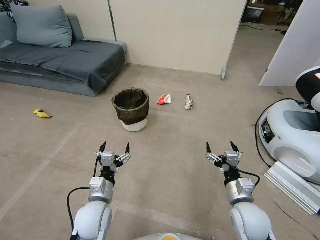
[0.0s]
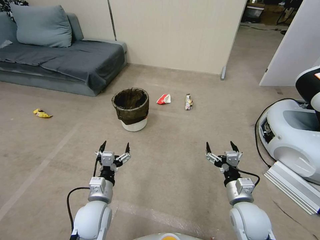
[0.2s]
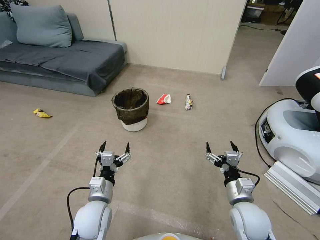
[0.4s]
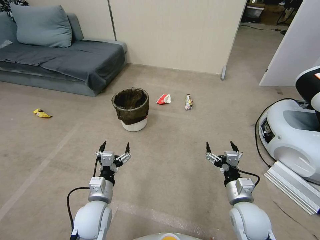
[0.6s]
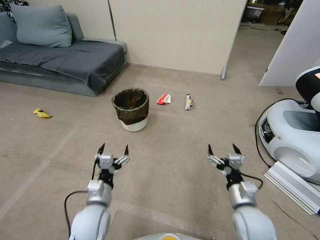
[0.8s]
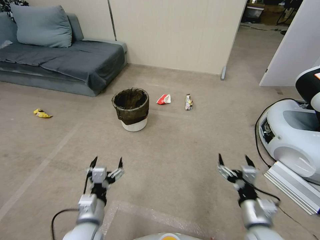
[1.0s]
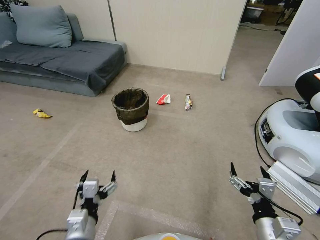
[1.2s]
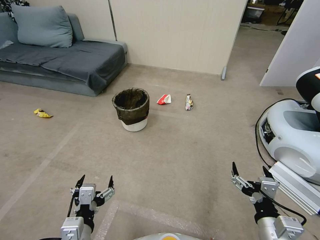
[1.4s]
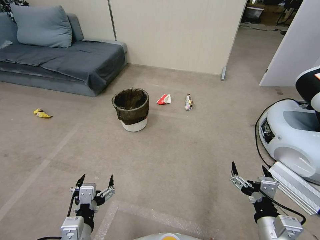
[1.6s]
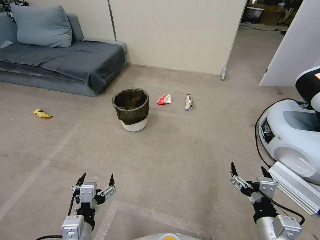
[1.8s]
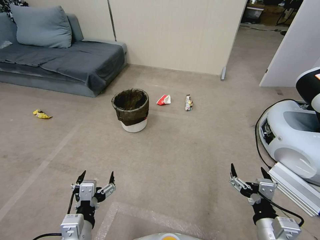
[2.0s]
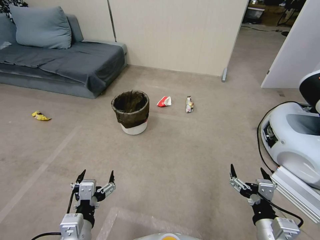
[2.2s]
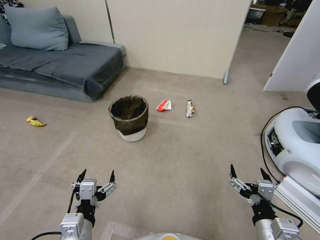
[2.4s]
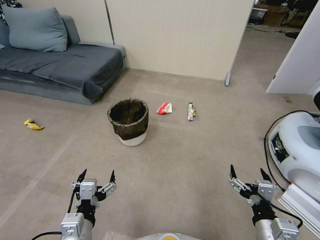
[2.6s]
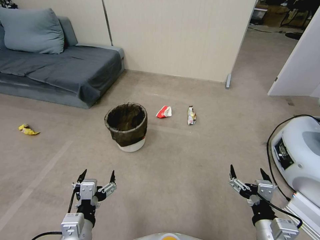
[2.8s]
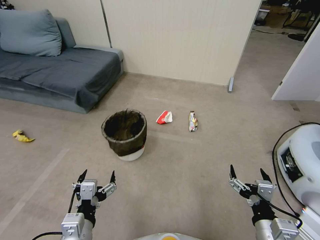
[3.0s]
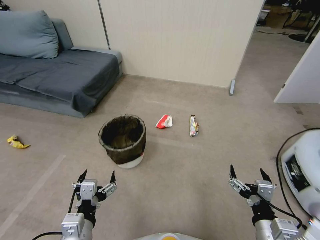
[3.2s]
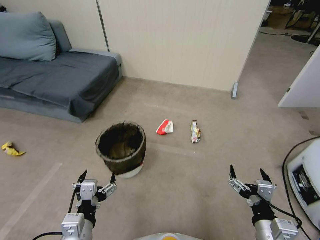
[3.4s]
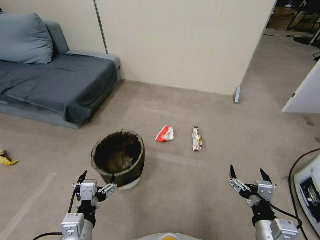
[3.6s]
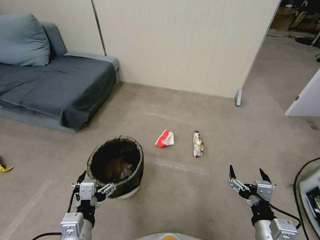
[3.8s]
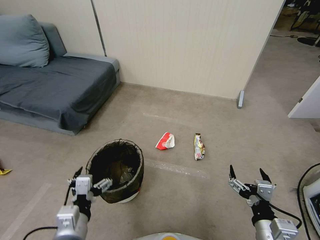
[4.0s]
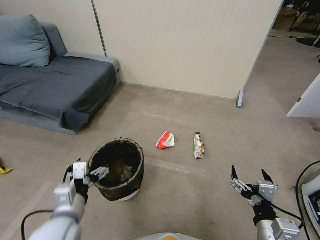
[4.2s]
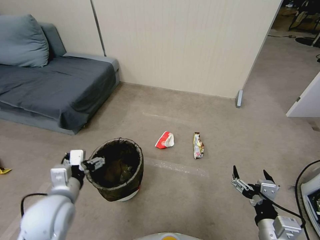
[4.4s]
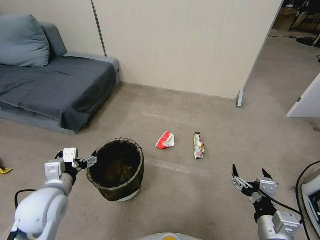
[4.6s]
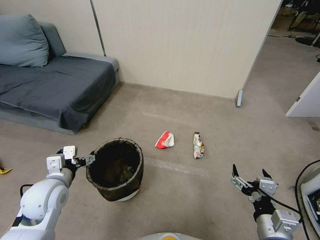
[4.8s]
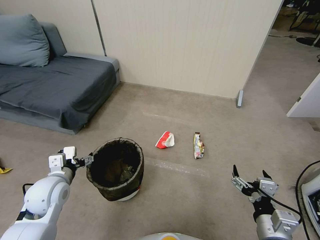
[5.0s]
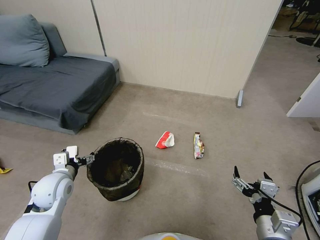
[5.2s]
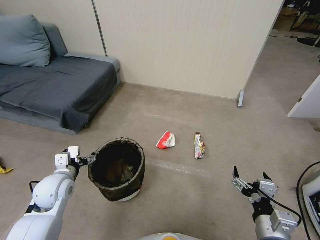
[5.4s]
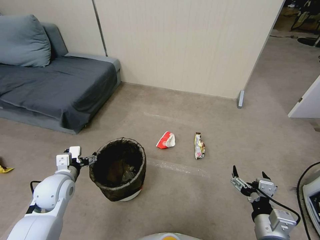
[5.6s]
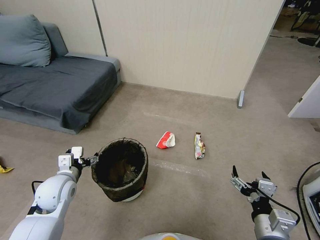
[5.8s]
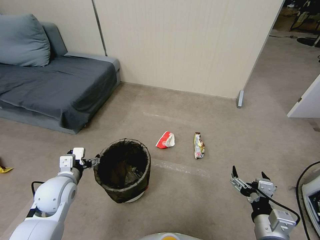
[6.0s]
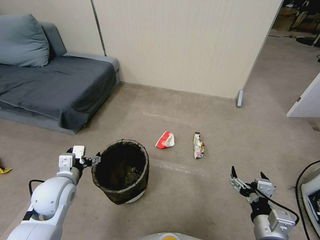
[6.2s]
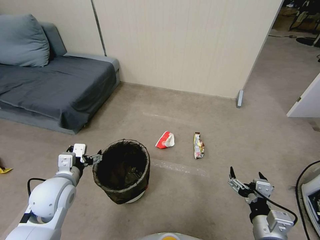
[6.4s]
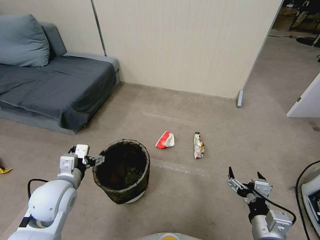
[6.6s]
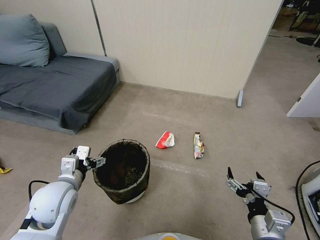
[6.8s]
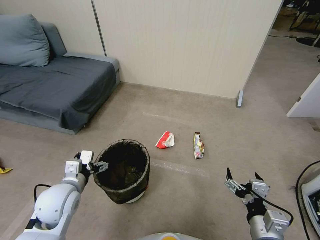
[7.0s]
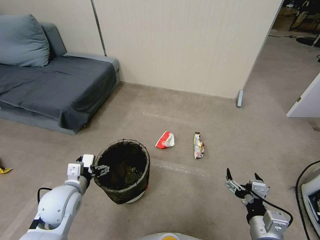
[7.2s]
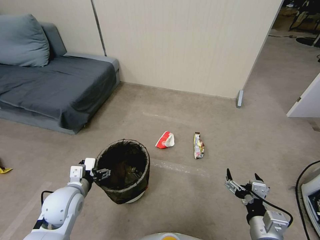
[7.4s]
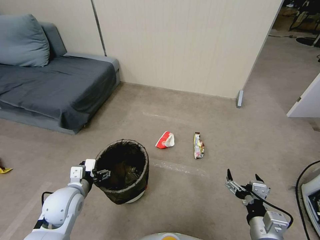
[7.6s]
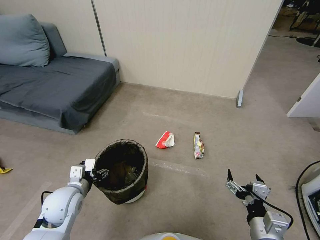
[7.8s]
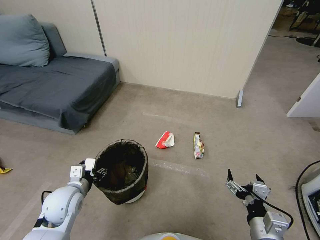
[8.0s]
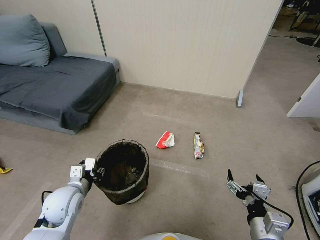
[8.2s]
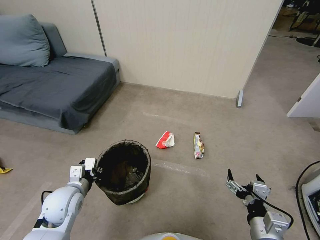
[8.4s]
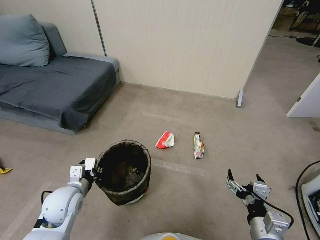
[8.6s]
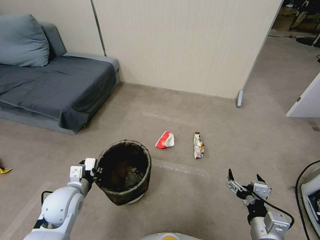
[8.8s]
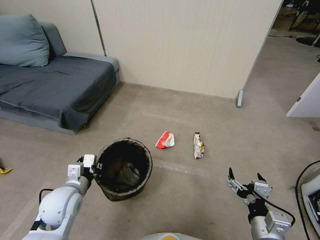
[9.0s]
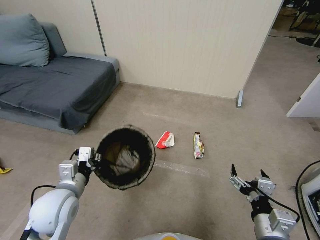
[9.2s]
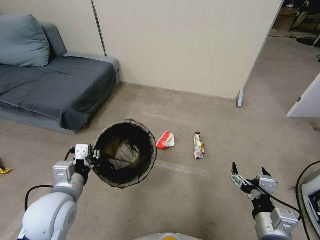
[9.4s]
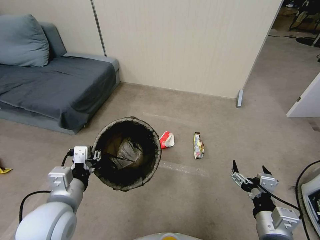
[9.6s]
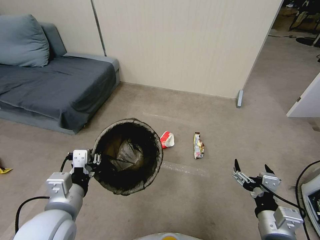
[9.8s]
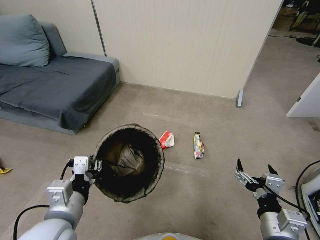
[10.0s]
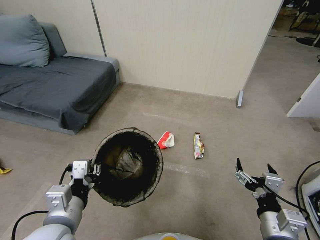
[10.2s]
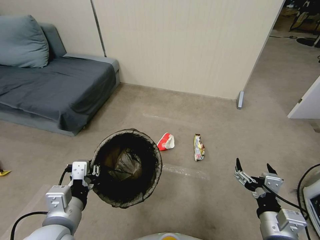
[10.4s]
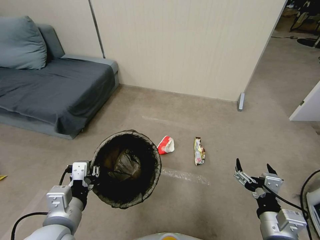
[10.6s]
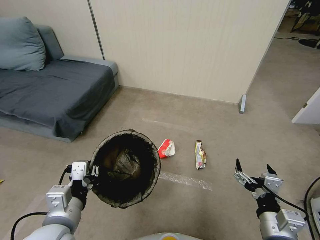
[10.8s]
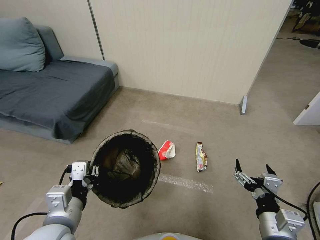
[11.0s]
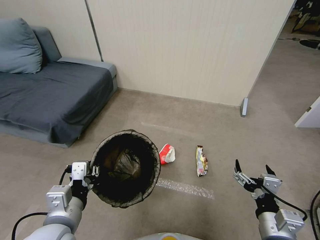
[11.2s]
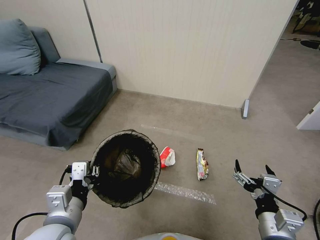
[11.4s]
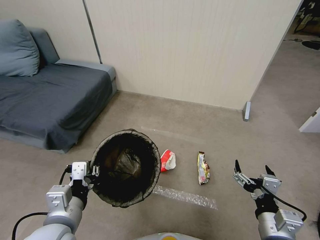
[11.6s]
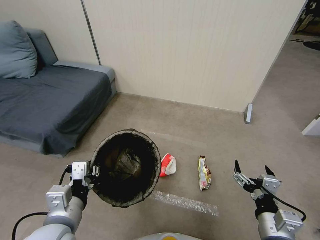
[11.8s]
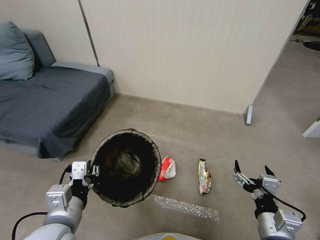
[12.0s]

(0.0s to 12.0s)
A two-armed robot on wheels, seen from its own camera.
Task of the whole recording: Pick up the trash bin, then pick up the garbage from the floor and place it into the trash bin.
3.0s - 4.4s: The left gripper moves forward and to the left, some 10 cm.
4.4s - 6.0s: The left gripper is displaced forward and downward by about 10 cm.
6.0s - 7.6s: There are only small adjustments of the grippers.
7.6s - 9.0s: The left gripper closes.
9.0s - 10.4s: The left gripper moves backward, upward and to the right, approximately 15 cm.

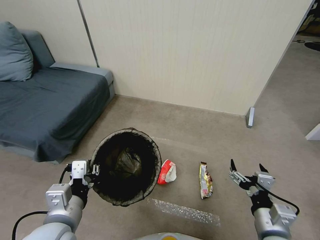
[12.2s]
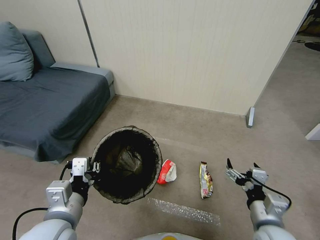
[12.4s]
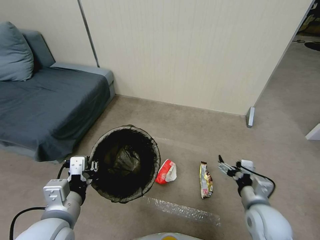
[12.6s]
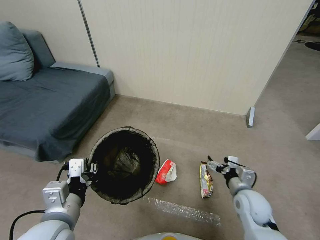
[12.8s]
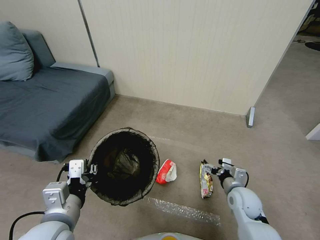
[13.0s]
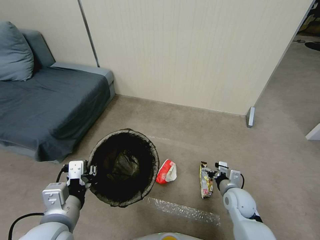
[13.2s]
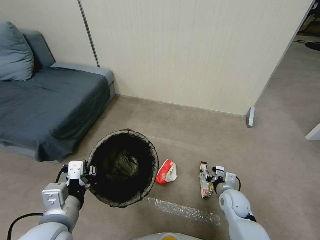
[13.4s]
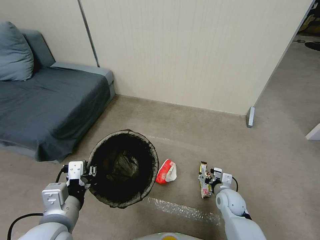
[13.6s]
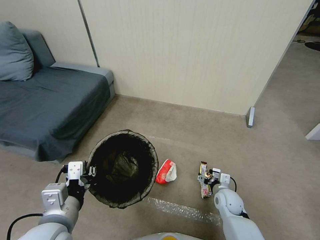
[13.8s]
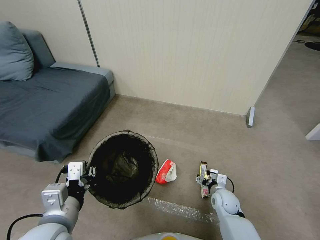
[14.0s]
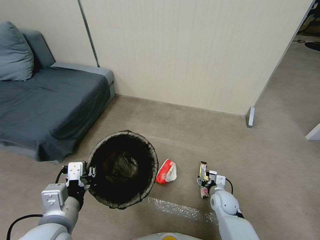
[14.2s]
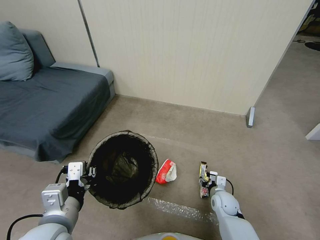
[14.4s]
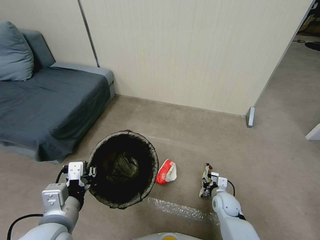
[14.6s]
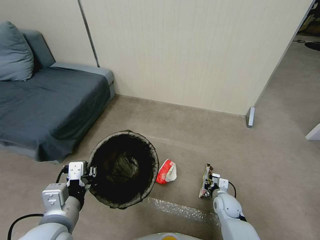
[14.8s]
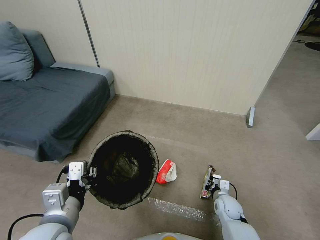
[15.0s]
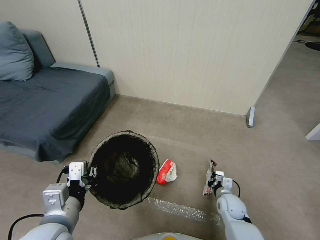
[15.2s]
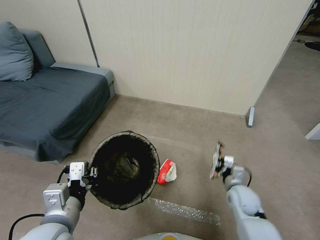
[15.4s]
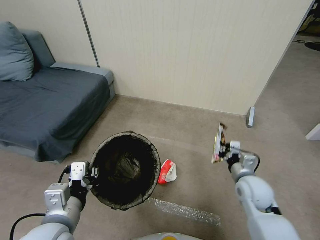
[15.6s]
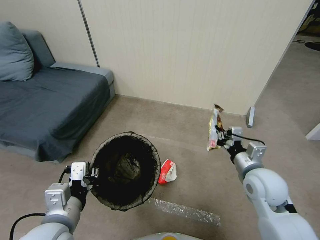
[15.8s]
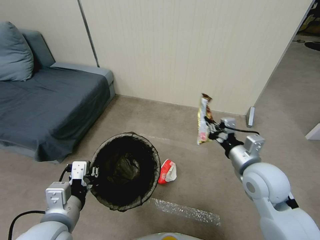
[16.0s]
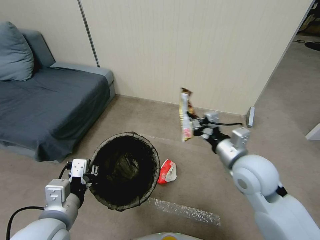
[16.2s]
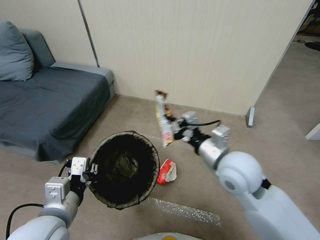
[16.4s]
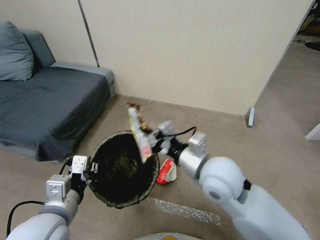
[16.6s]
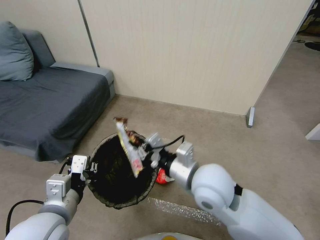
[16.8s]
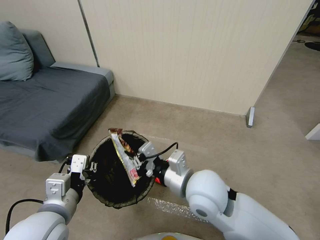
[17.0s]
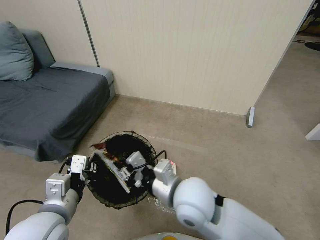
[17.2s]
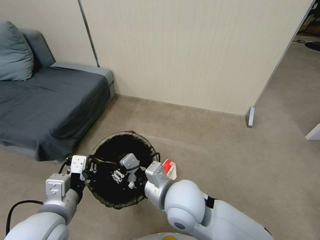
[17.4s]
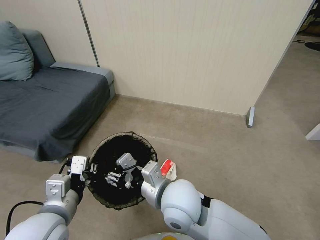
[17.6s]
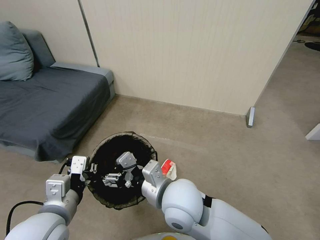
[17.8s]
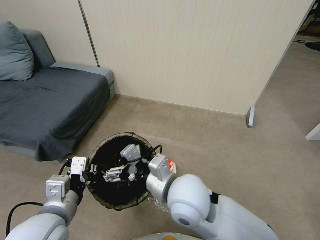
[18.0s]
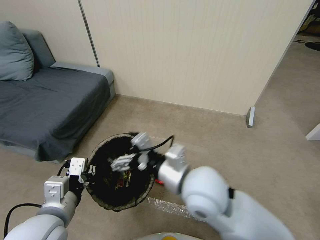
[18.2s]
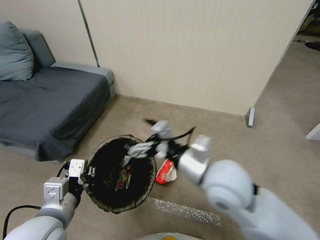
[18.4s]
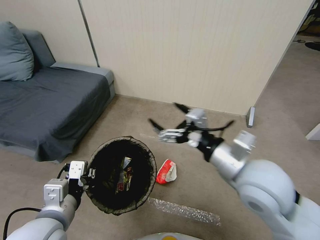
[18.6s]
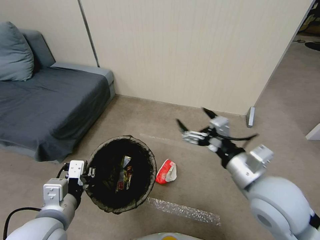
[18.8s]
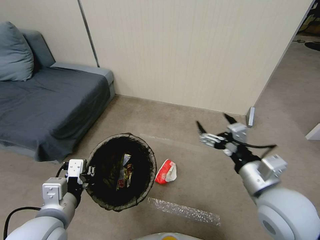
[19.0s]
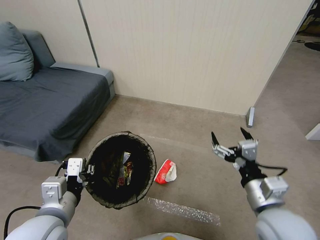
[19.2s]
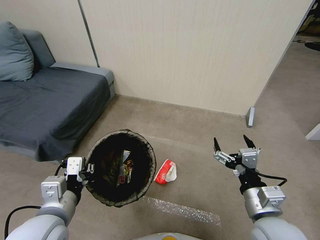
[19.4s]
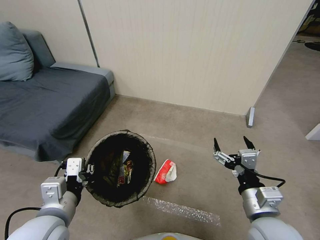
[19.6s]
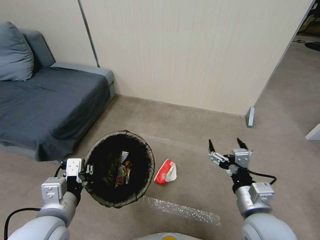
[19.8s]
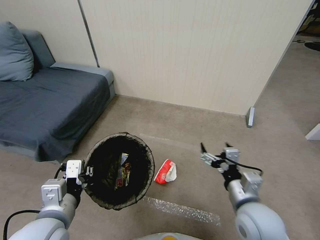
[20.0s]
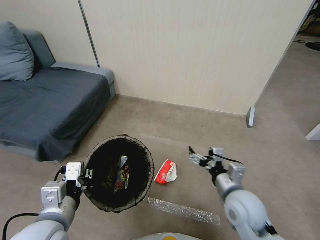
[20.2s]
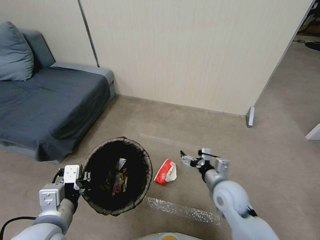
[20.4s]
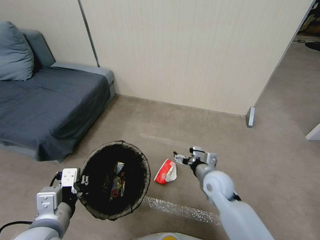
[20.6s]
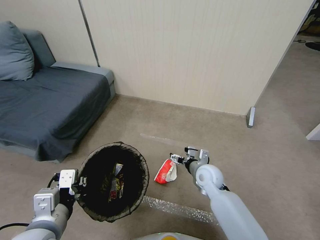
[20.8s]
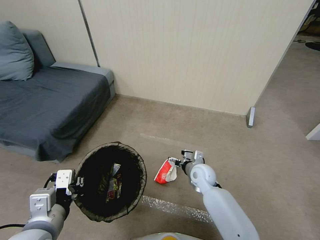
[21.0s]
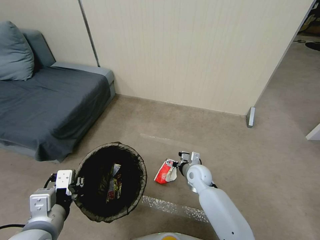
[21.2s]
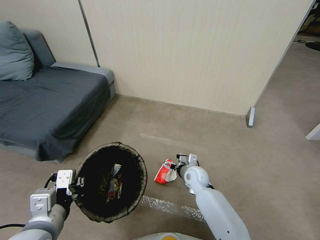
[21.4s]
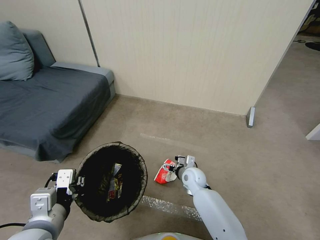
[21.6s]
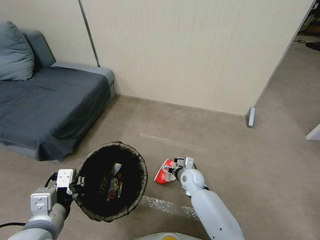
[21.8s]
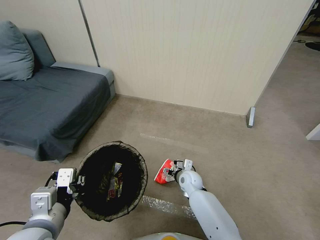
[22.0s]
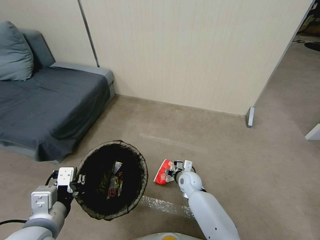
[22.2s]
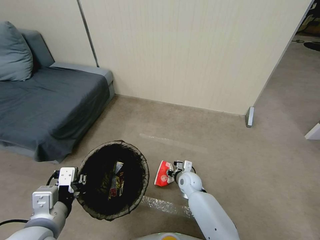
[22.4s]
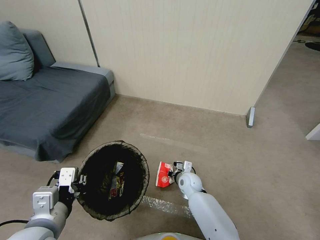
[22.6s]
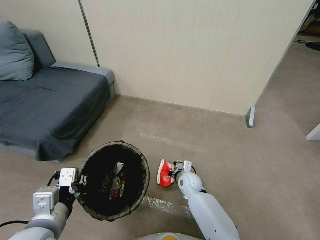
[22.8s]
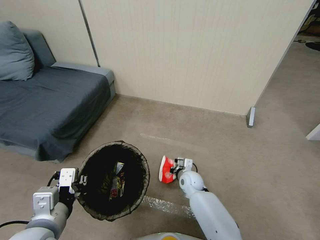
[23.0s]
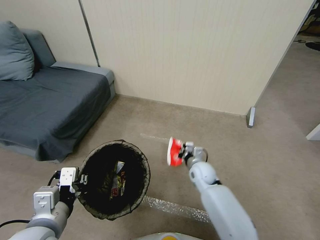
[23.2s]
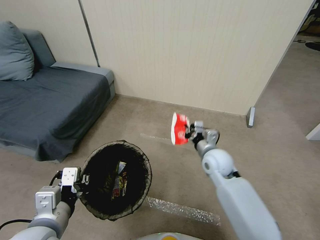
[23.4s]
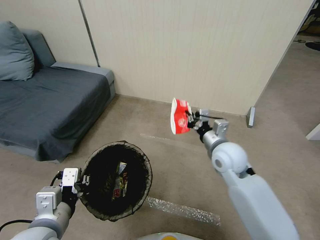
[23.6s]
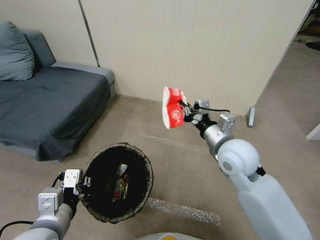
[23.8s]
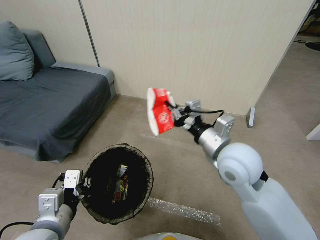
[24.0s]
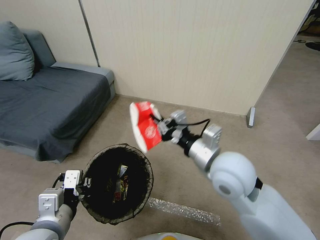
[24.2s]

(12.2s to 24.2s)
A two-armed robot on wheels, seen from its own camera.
Task of the whole recording: Pick up the trash bin, then pick up the garbage from the floor and place it into the trash bin.
12.2s - 13.8s: The right gripper moves downward and forward, some 25 cm.
13.8s - 15.2s: The right gripper closes up.
15.2s - 16.6s: The right gripper shifts some 35 cm upward.
16.6s - 18.2s: The right gripper moves to the left, some 5 cm, and opens its fingers.
18.2s - 19.8s: The right gripper is displaced to the right, downward and backward by some 20 cm.
19.8s - 21.2s: The right gripper moves forward, downward and to the left, roughly 30 cm.
21.2s - 22.6s: The right gripper moves downward, approximately 5 cm, and closes up.
22.6s - 24.2s: The right gripper shifts roughly 35 cm upward.
